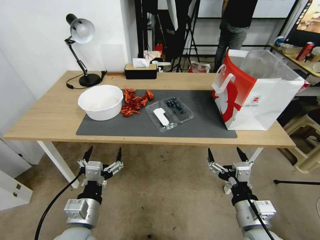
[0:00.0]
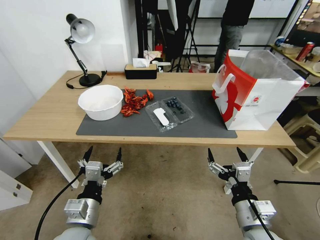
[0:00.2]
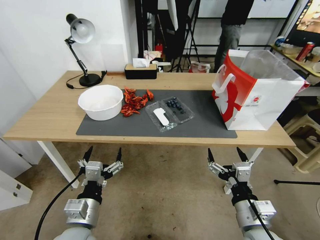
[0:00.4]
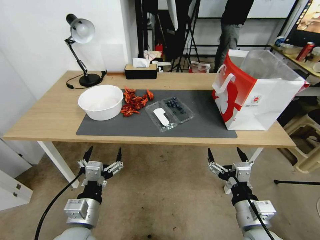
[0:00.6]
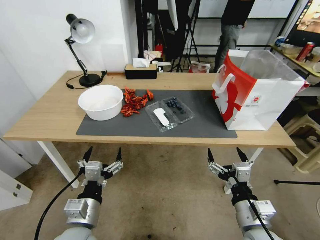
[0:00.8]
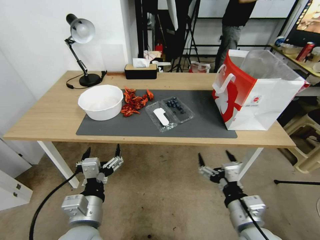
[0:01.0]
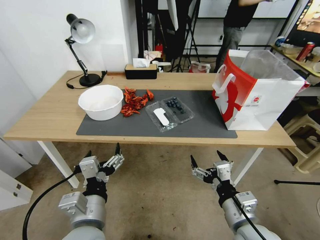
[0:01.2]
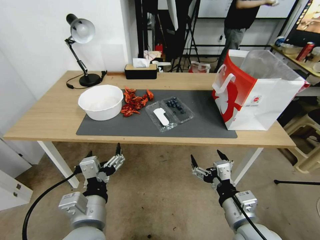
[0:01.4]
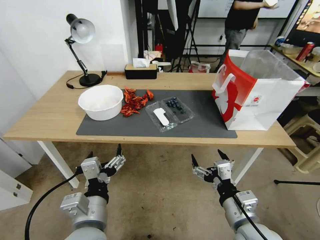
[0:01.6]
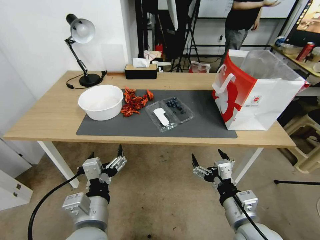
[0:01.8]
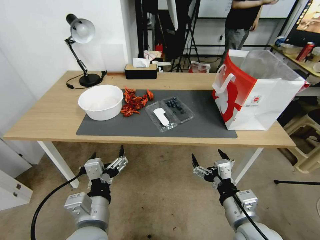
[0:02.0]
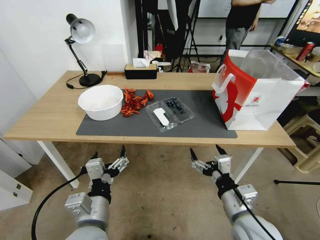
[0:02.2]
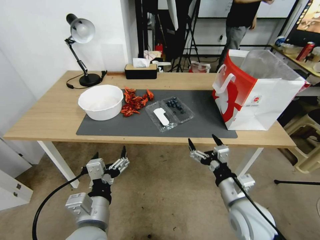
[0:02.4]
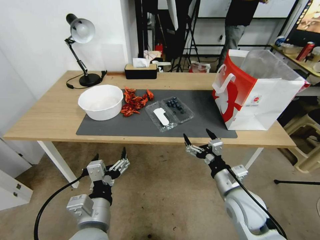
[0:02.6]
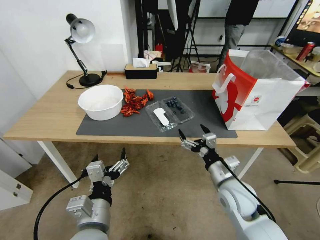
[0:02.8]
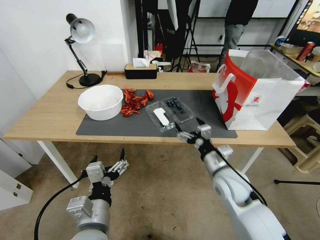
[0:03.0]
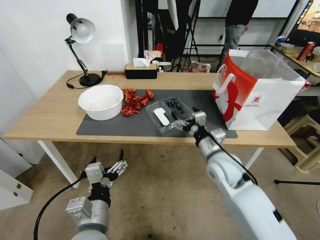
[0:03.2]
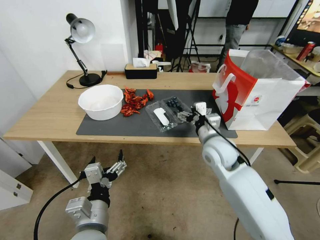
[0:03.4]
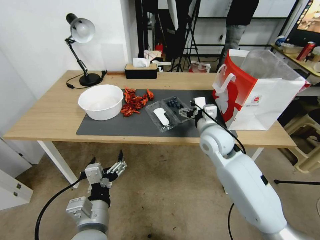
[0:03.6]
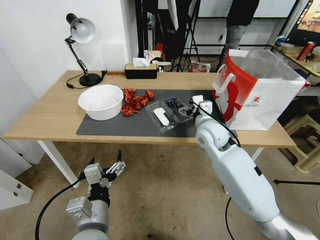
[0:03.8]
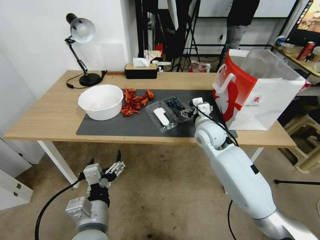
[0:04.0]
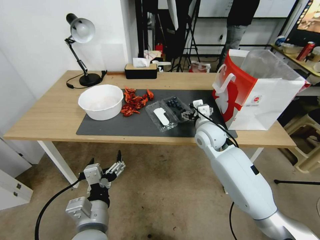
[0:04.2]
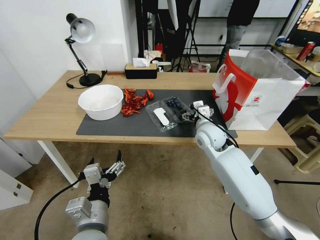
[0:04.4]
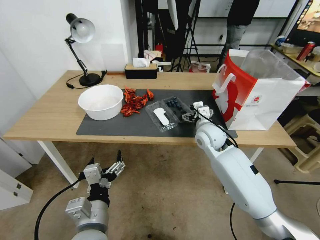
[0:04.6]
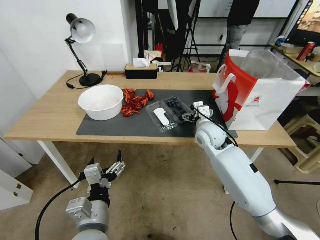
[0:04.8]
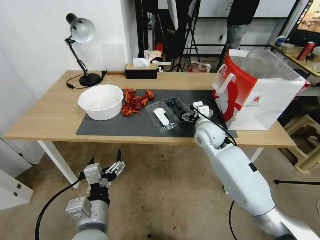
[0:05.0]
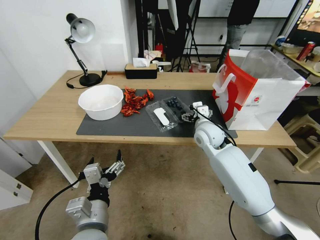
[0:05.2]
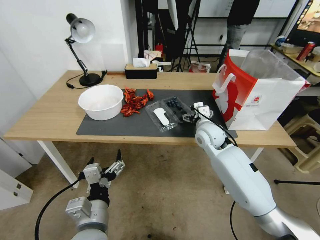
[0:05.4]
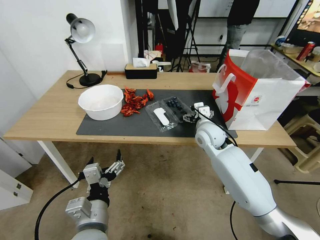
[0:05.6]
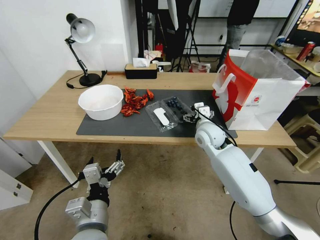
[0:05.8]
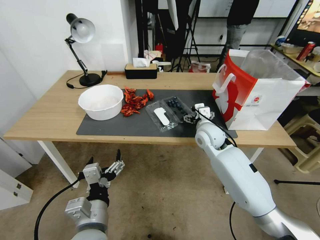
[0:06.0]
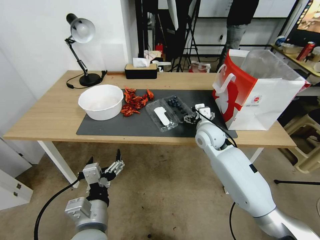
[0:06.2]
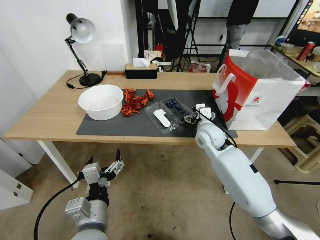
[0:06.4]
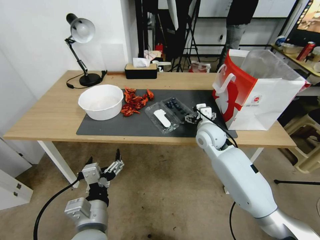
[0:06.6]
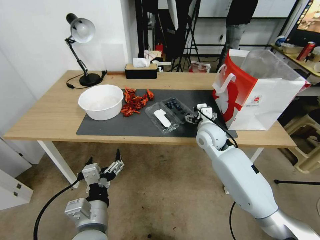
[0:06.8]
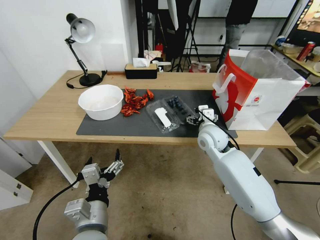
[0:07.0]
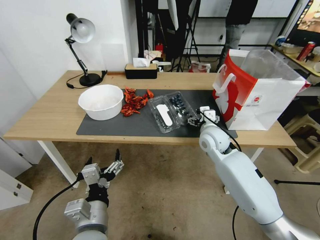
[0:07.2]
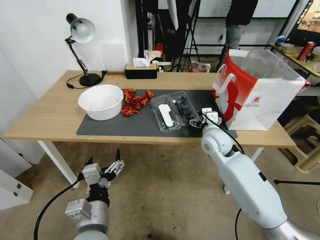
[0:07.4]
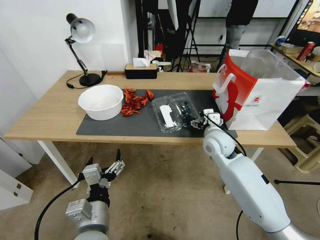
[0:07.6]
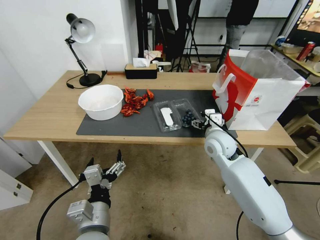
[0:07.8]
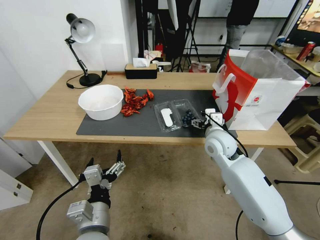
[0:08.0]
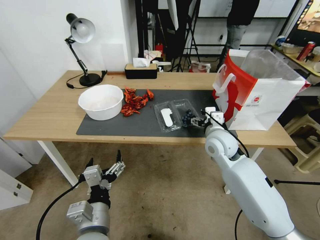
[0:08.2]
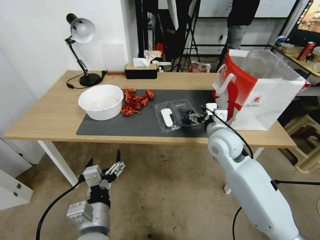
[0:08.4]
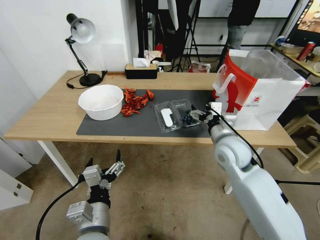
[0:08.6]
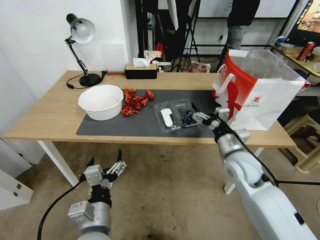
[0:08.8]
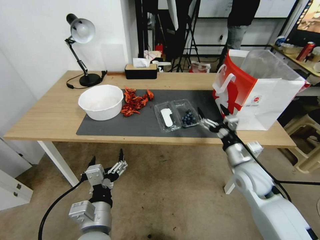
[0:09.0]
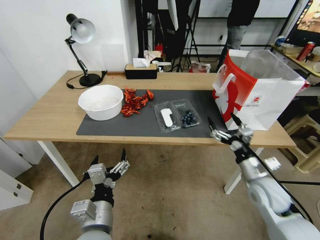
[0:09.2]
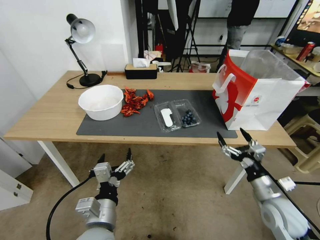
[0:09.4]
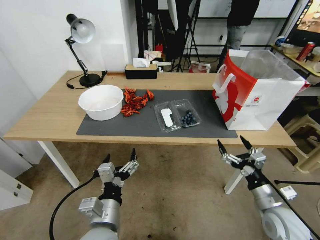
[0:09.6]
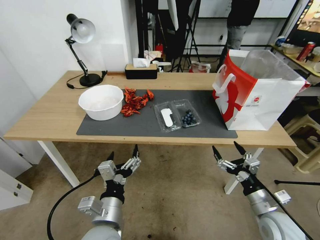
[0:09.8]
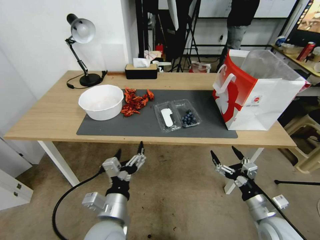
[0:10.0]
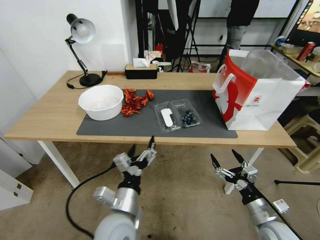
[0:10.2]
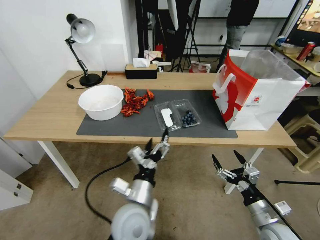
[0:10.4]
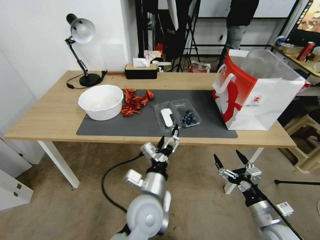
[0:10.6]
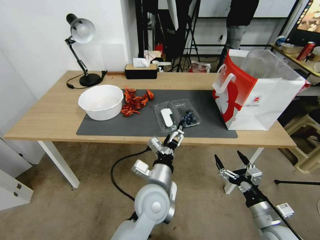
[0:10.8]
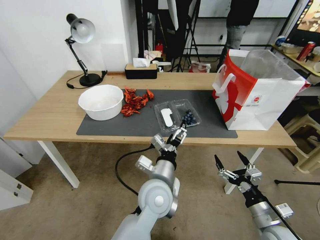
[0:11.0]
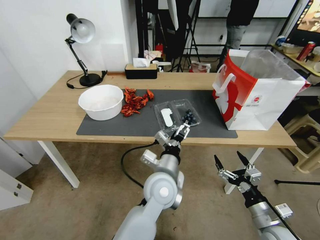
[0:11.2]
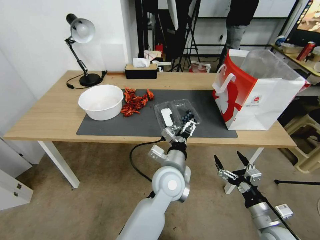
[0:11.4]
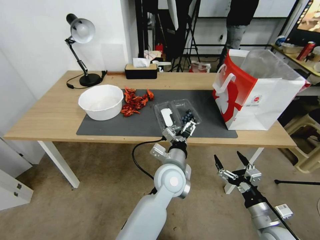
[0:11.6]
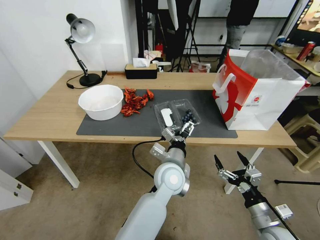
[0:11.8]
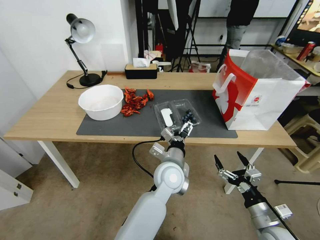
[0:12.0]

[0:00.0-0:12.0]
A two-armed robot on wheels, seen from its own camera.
Task of the whole recording: Close the takeout container lid, then place the container into the takeout bag.
0:01.6 to 0:03.0: The right gripper travels forward by about 15 cm.
0:03.0 to 0:04.4: The right gripper travels forward by about 15 cm.
0:04.4 to 0:07.6: The grippers stay close to where they were, moving slightly.
0:07.6 to 0:09.0: The right gripper shifts some 15 cm backward and to the right.
0:09.0 to 0:10.4: The right gripper shifts approximately 15 cm backward and downward; the left gripper shifts approximately 10 cm to the right and forward.
0:10.4 to 0:12.0: The left gripper travels forward and to the right by about 15 cm.

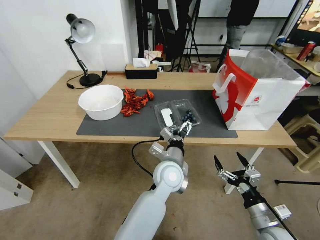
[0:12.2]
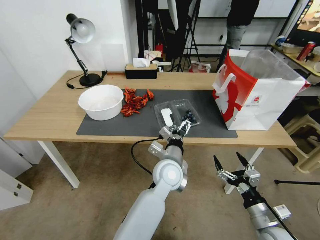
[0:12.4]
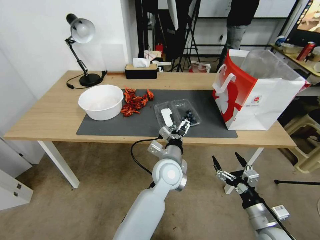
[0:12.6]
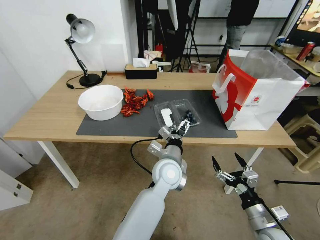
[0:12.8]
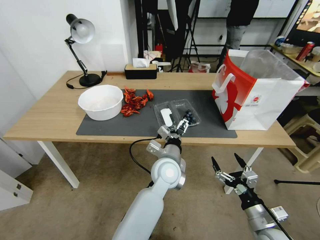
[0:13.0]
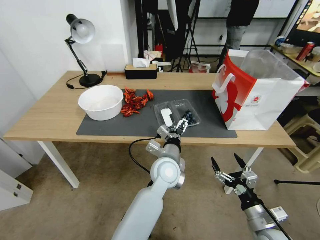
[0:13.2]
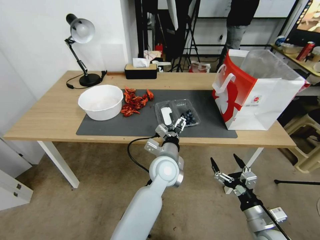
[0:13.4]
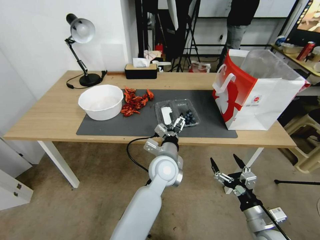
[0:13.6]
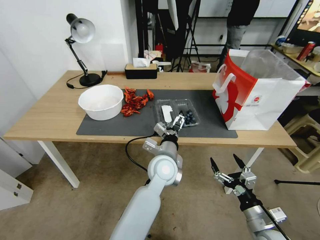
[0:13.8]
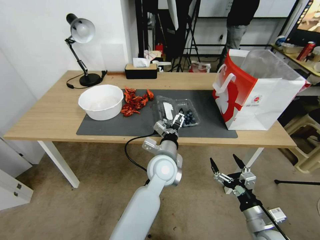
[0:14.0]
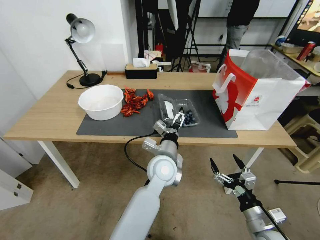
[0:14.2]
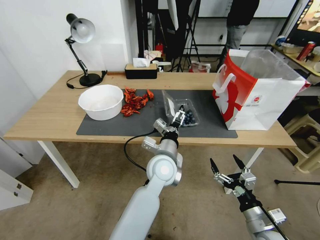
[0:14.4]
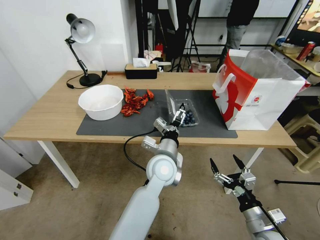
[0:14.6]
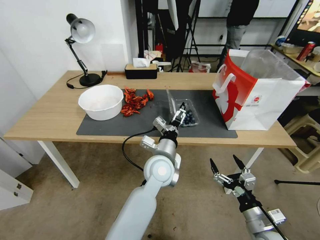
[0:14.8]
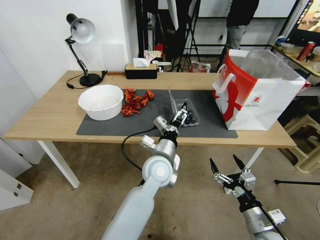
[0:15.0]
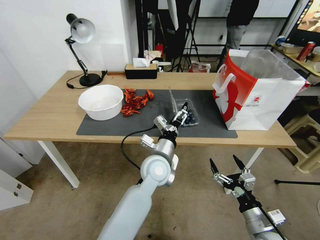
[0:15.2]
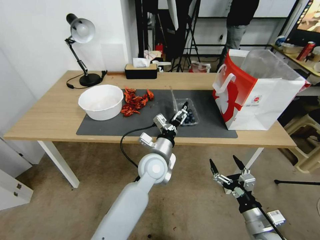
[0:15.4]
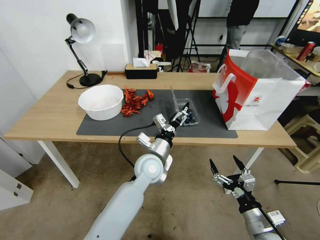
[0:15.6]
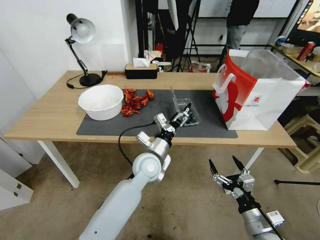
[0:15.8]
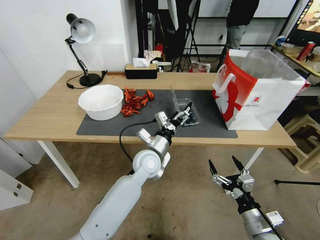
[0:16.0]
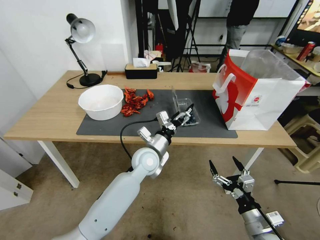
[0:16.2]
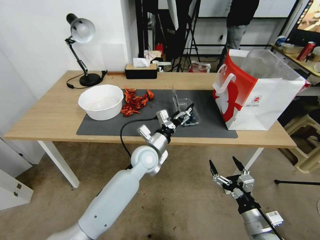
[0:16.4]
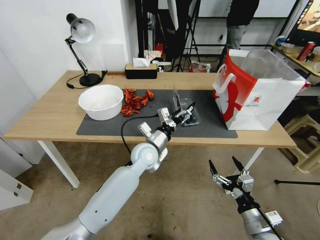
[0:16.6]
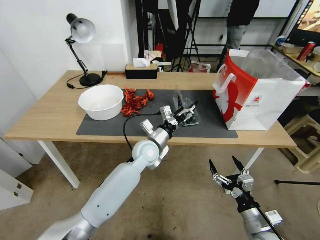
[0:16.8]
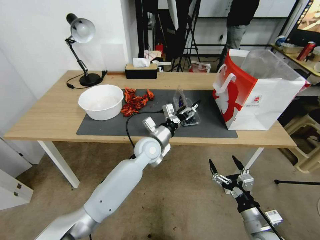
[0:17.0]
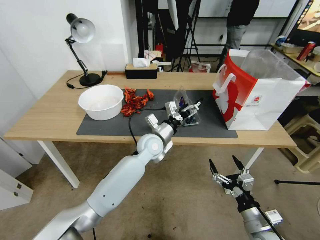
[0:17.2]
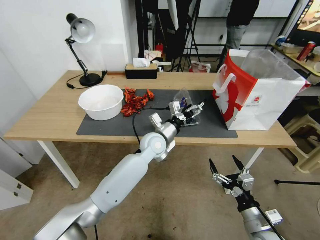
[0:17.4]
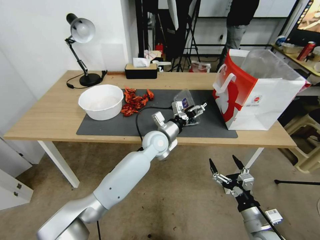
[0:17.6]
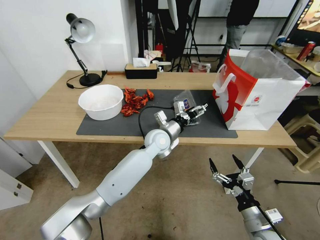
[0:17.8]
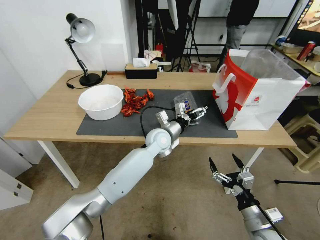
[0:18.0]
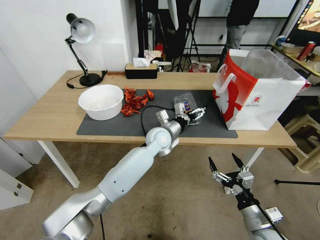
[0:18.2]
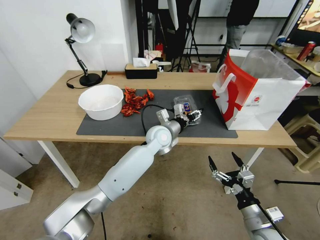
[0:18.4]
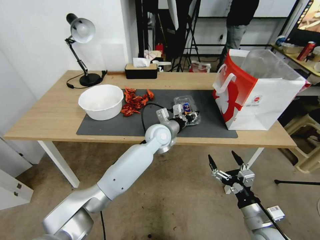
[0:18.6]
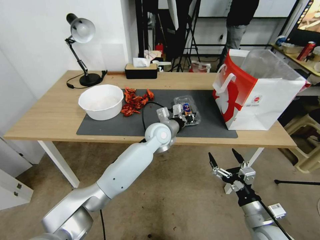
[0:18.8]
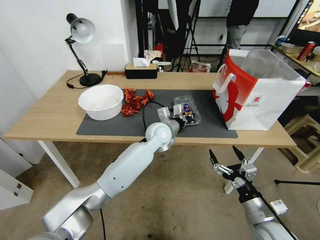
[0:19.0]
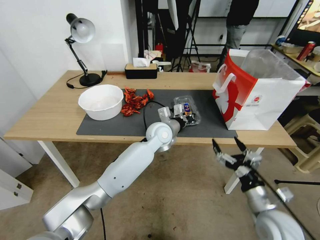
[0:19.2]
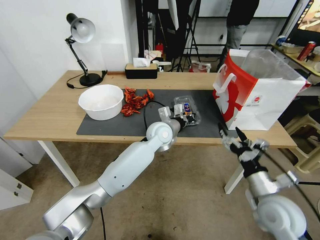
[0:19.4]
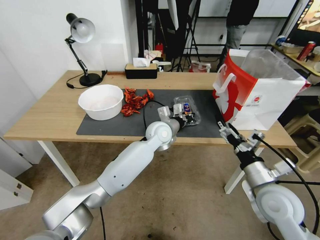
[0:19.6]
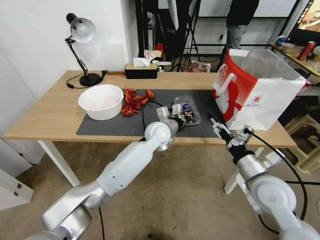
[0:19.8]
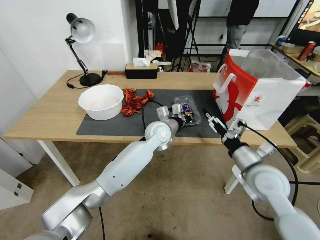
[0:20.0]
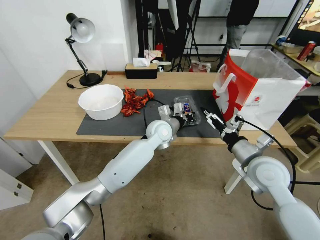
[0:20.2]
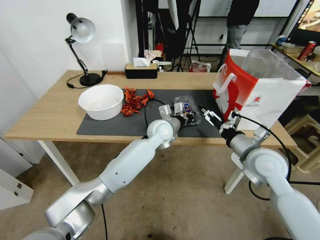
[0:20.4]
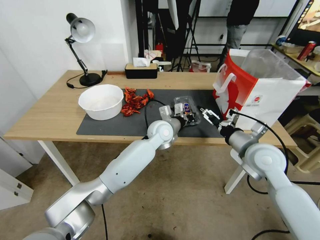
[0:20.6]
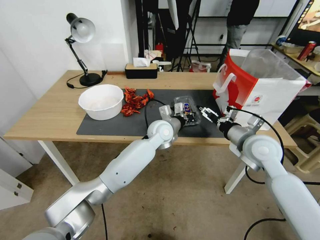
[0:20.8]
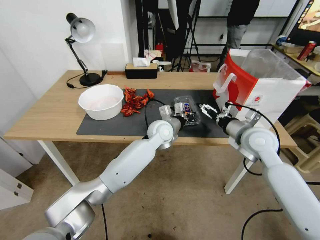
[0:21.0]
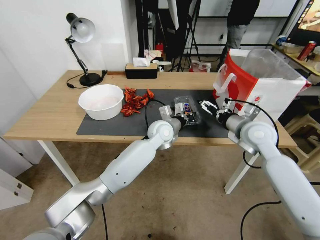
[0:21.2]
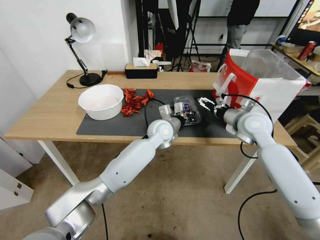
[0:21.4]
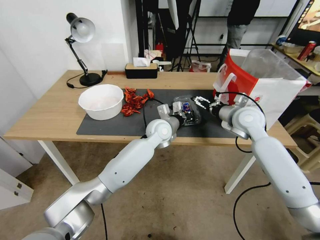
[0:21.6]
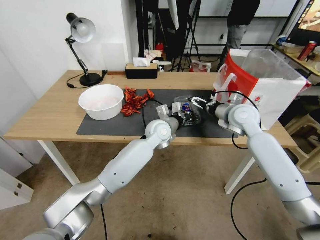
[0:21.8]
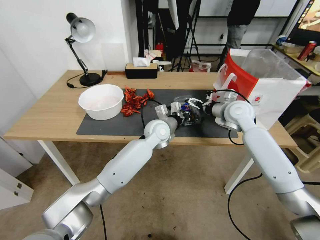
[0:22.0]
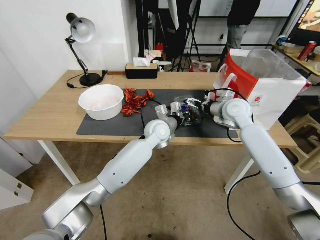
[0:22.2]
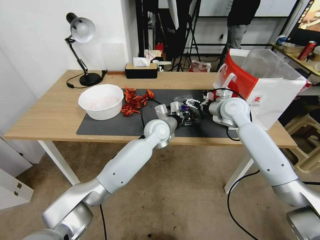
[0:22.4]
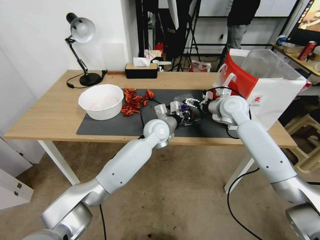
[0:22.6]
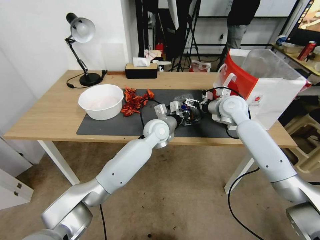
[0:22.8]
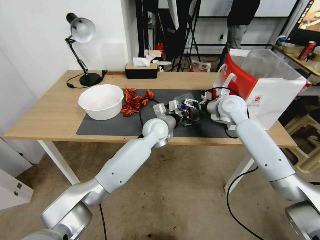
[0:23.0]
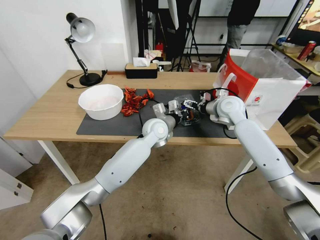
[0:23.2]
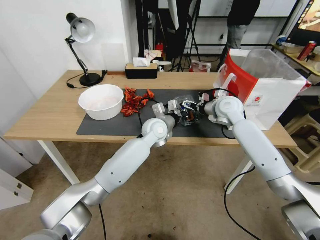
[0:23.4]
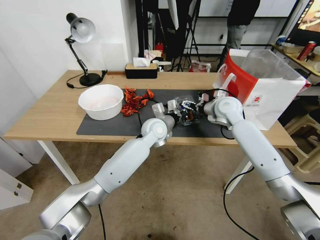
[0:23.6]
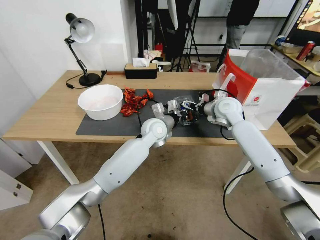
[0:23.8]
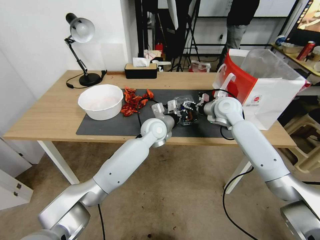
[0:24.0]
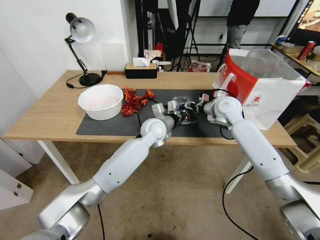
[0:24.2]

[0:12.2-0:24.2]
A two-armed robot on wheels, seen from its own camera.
Task of the whole recording: Close the takeout container lid, then place the container into the takeout bag.
0:12.2 to 0:15.2: There are only small adjustments of the grippers.
0:15.2 to 0:16.6: The left gripper shifts approximately 5 cm forward.
0:16.6 to 0:18.2: The left gripper moves forward, roughly 5 cm.
0:18.2 to 0:19.8: The right gripper shifts approximately 15 cm upward and forward, while the left gripper closes.
0:19.8 to 0:21.2: The right gripper heads forward and upward, covering roughly 15 cm.
0:21.2 to 0:22.6: The right gripper travels forward by about 10 cm.
0:22.6 to 0:24.2: The right gripper closes up.
